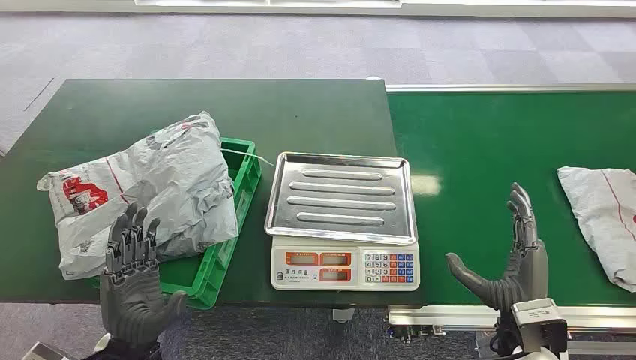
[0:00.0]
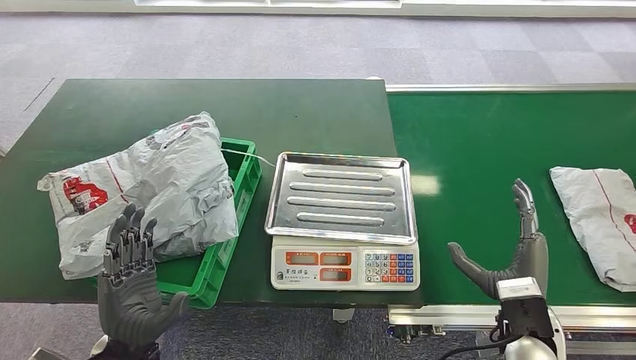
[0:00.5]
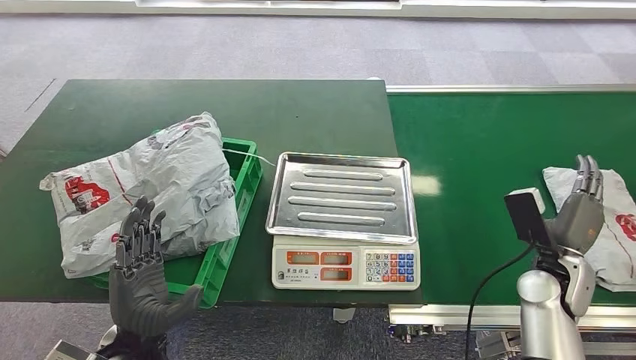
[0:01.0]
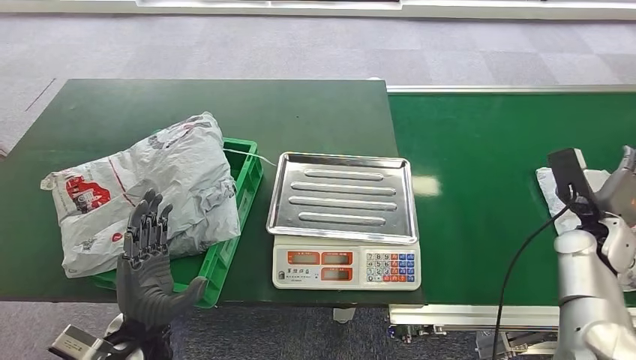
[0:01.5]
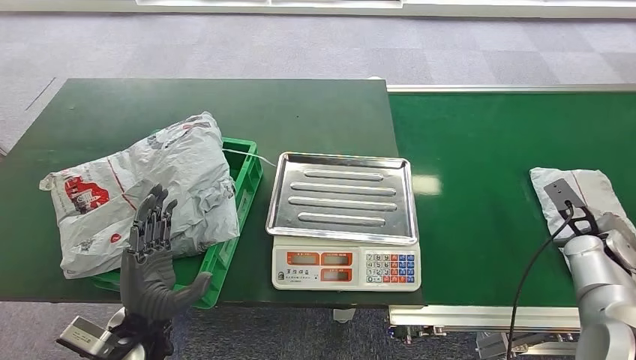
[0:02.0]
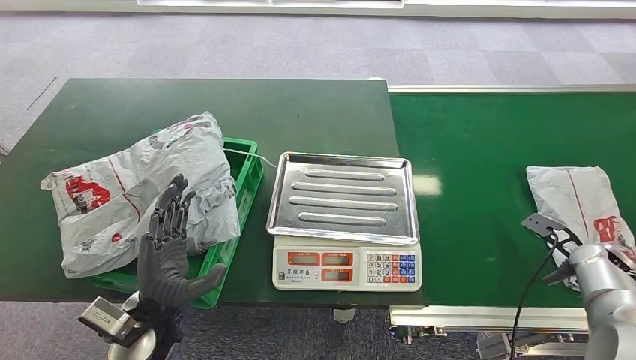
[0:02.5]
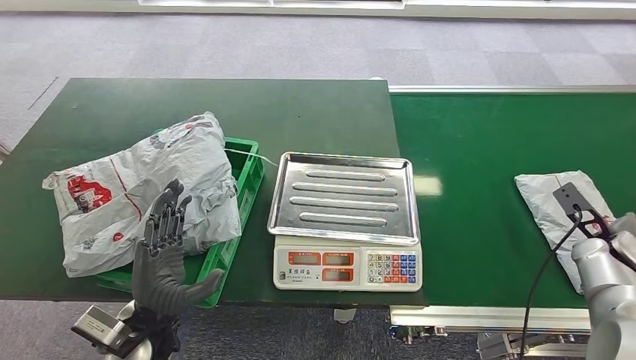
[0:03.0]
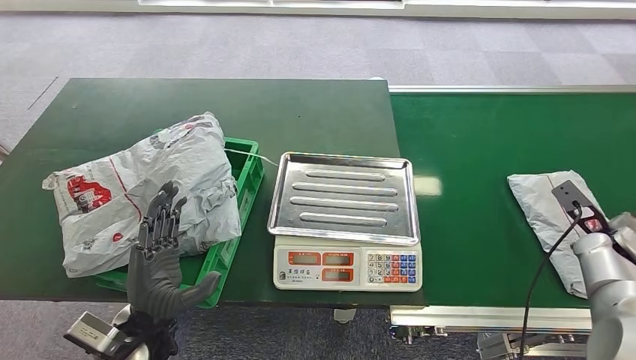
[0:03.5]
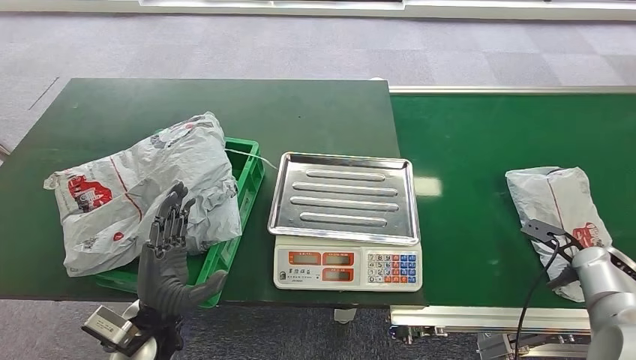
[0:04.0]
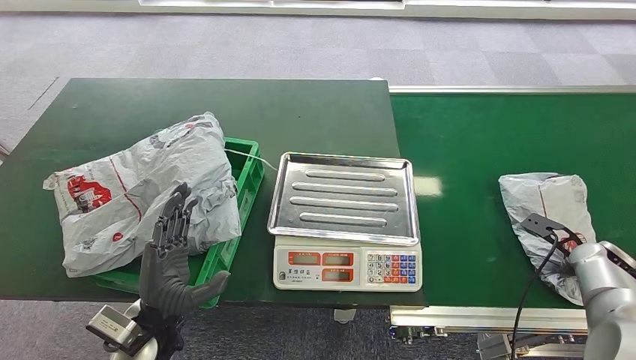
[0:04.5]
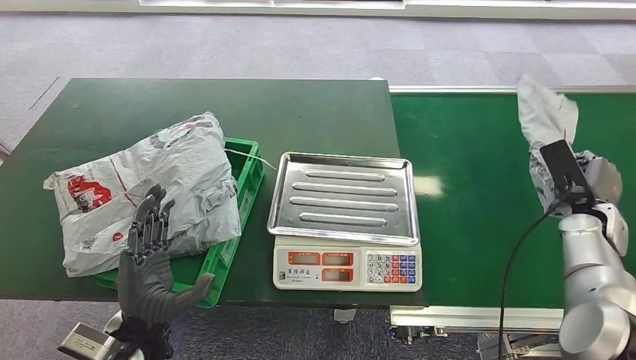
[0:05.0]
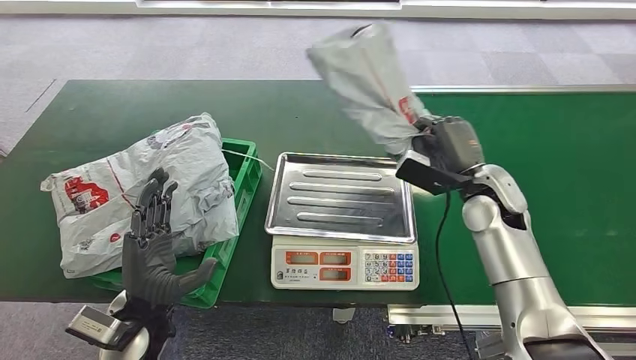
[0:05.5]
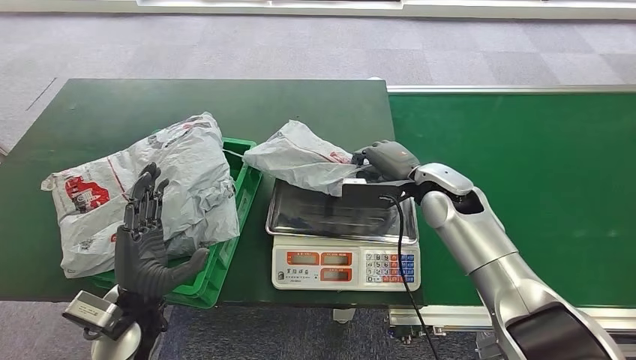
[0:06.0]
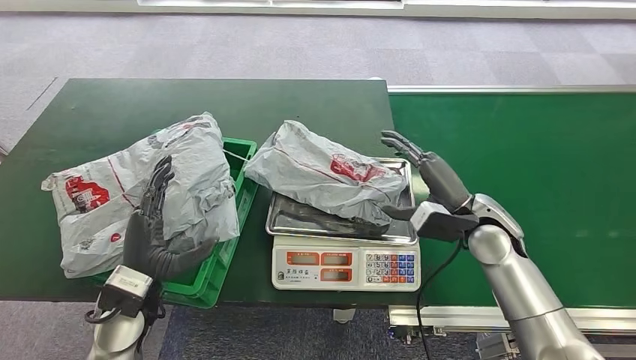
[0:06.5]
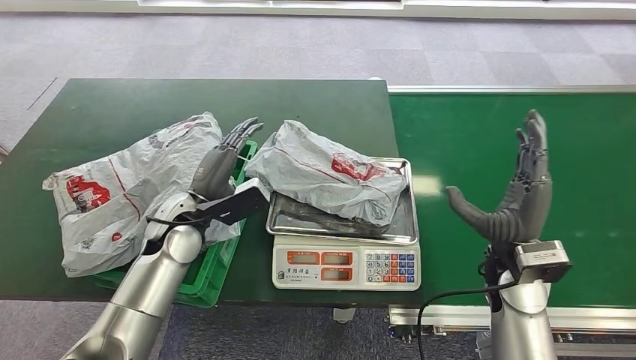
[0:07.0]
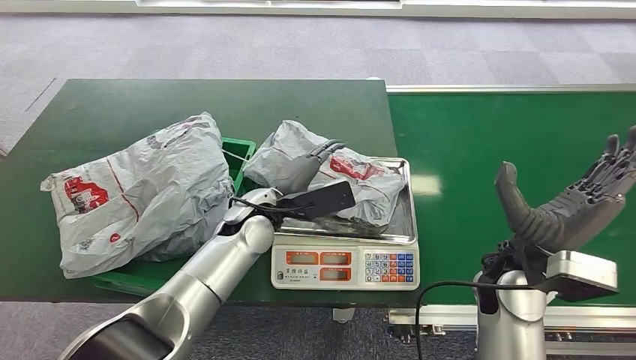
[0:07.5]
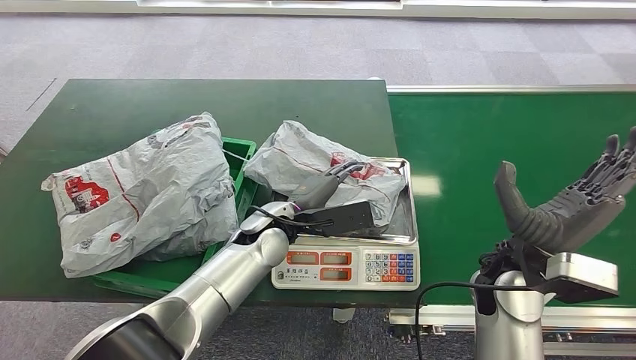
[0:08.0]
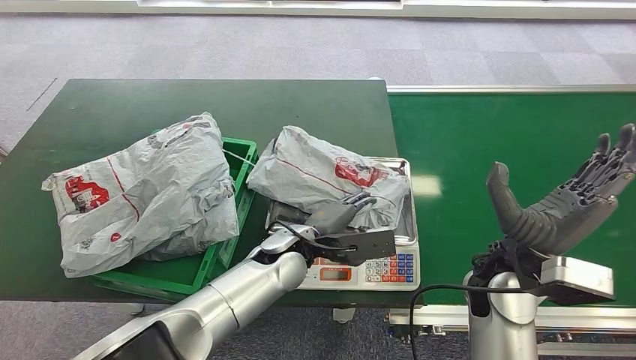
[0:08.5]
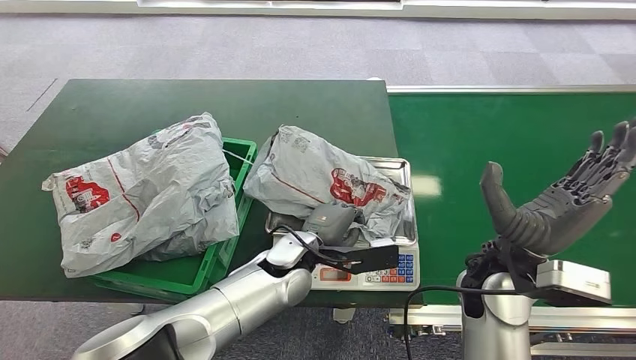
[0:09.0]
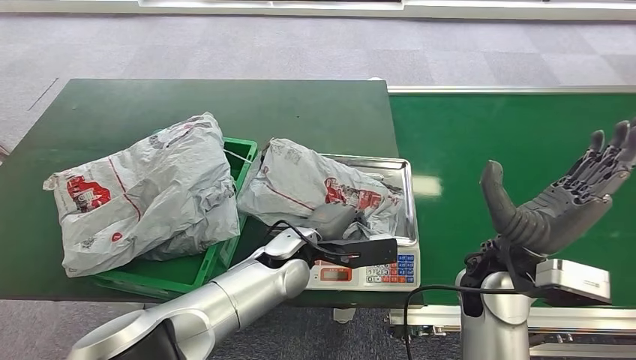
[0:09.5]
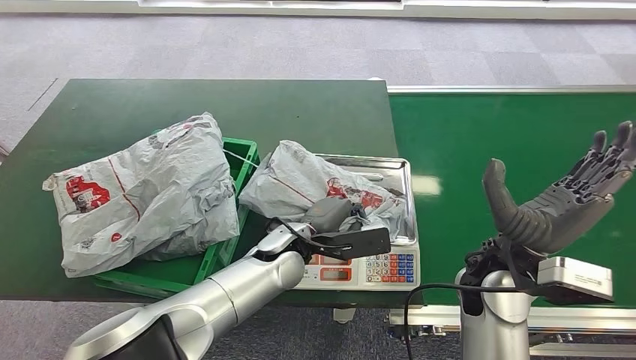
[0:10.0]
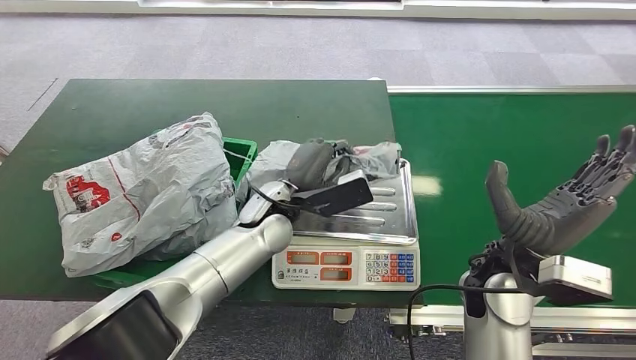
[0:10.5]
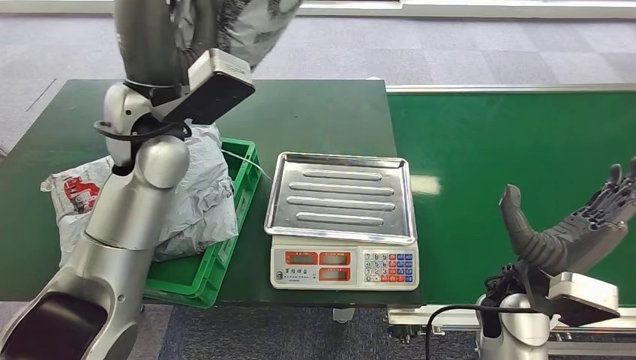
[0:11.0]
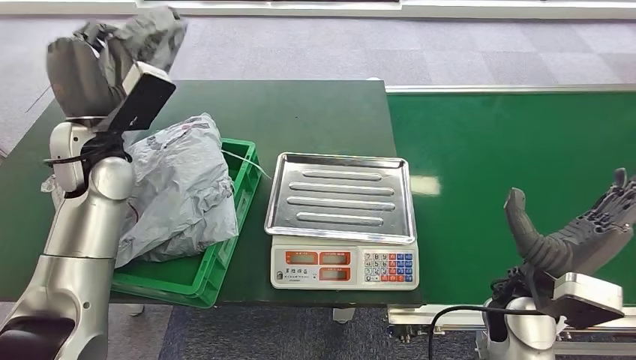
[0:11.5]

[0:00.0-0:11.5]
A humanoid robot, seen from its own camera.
Step, 0:00.0 to 0:05.5: Pick up the package from the conveyor belt.
Step, 0:06.0 to 0:06.5: Place the package onto the inbound machine.
Step, 0:07.0 to 0:11.0: Pick up the package from the inbound machine.
